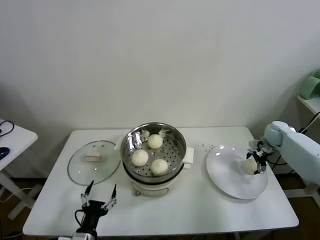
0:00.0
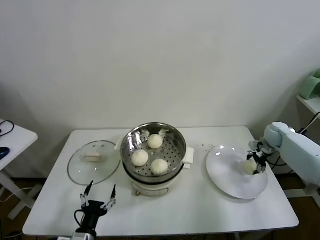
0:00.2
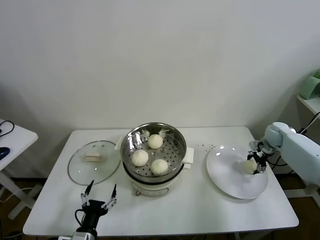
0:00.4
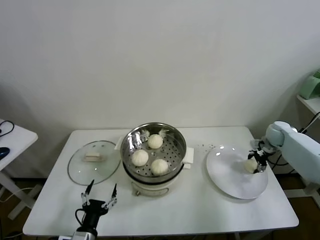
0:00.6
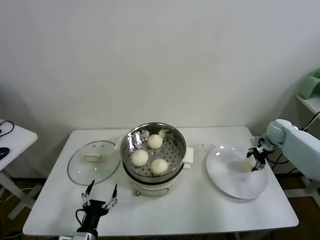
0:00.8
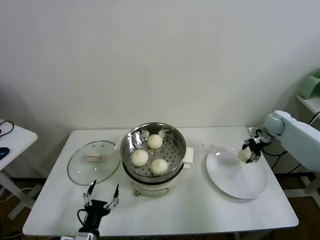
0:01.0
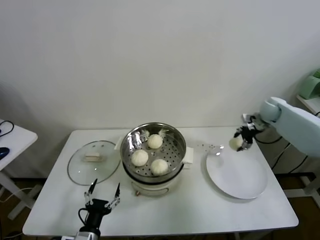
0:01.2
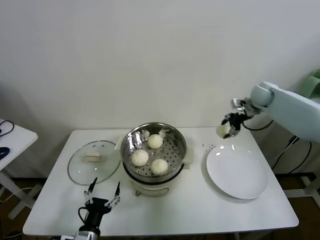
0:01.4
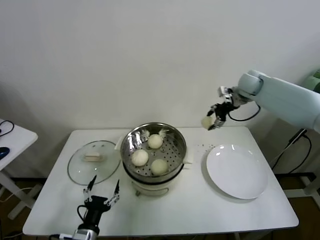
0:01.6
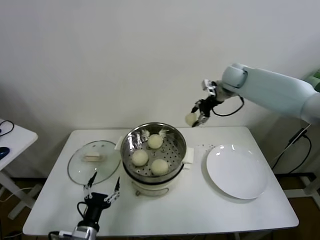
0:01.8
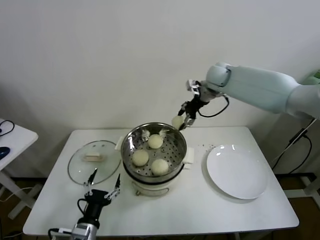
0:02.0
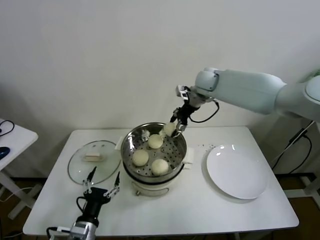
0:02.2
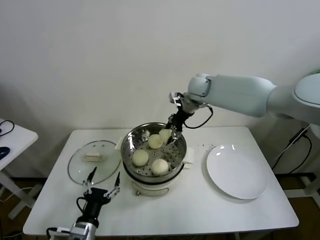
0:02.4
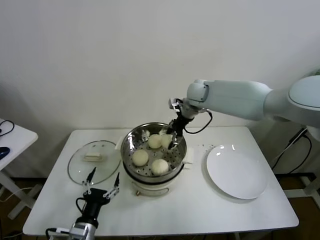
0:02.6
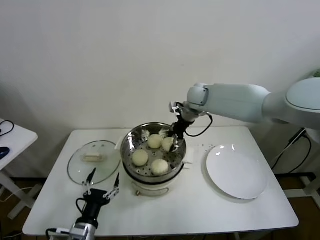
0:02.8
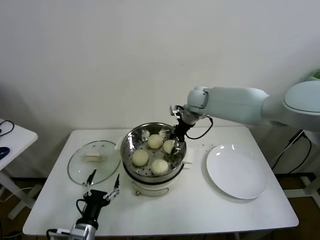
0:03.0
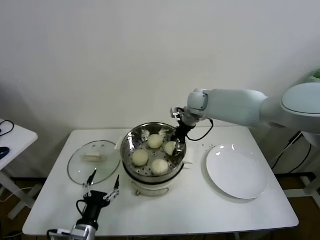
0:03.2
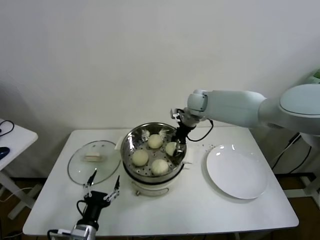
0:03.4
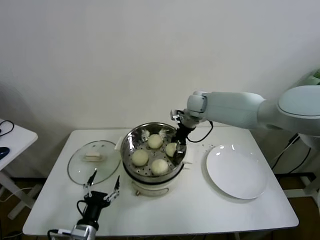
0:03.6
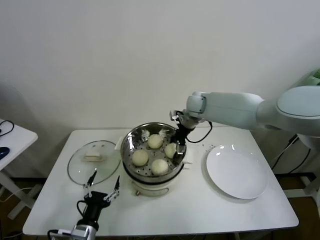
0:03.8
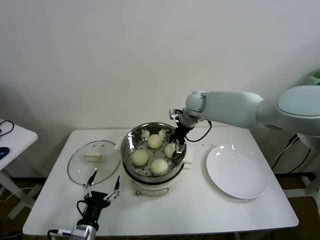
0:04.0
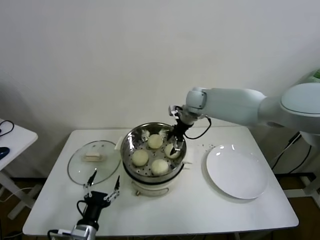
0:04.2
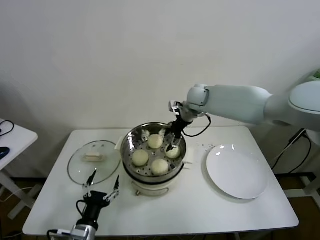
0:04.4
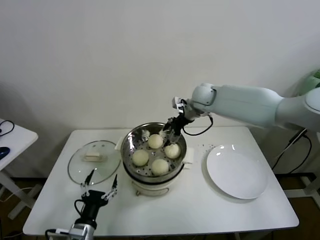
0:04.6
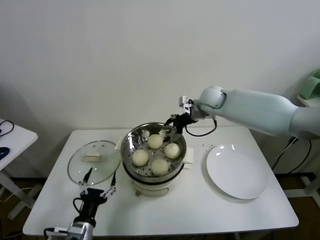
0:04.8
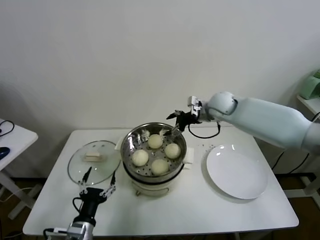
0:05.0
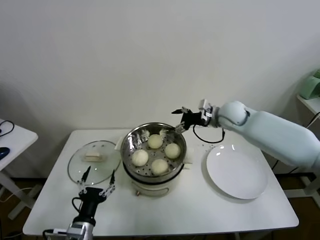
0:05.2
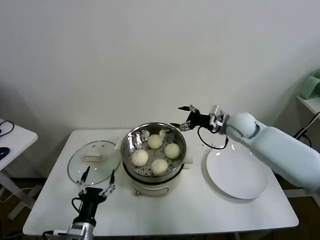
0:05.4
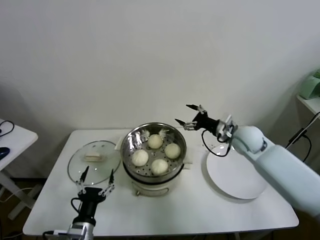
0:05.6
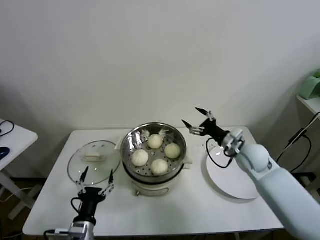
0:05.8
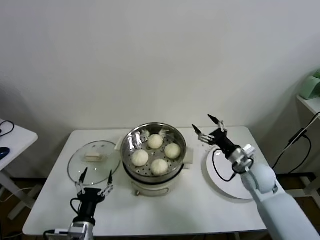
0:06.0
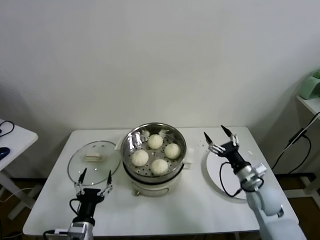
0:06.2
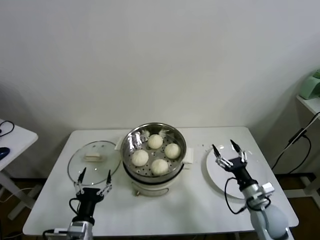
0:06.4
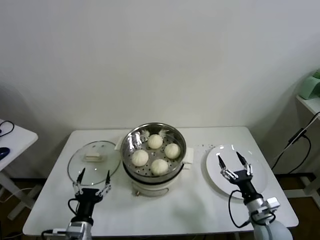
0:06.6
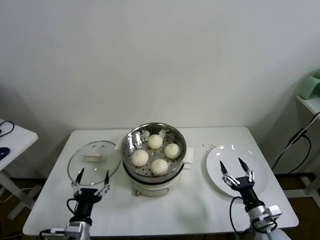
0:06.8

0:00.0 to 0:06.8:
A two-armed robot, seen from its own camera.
Task of the whole recording: take steamed baozi put them in steamer.
Step, 0:00.2 to 0:04.0: Place the baozi on the steamer with right gripper.
0:00.0 to 0:01.4: The right gripper moves upward and to the left, roughly 15 cm, and closes its fingers.
0:01.4 to 0:02.8: The right gripper moves to the left, some 25 cm.
0:02.8 to 0:04.0: The right gripper opens its fingers.
0:04.0 to 0:05.4: The right gripper heads to the right and backward, covering approximately 15 cm.
0:05.4 to 0:06.8: The right gripper shifts about 35 cm backward and downward.

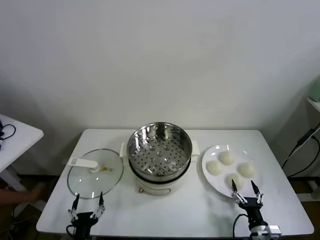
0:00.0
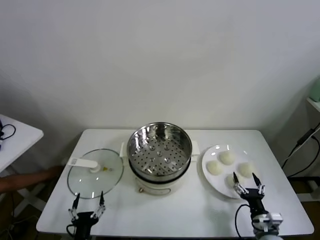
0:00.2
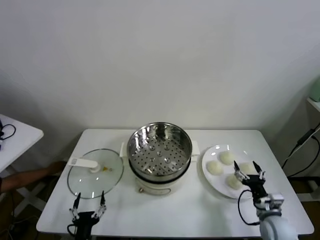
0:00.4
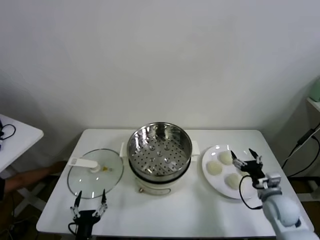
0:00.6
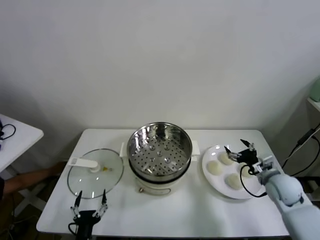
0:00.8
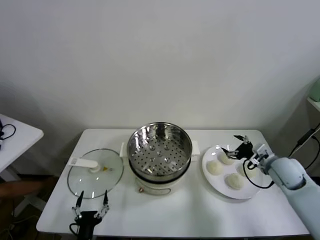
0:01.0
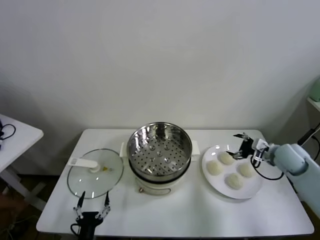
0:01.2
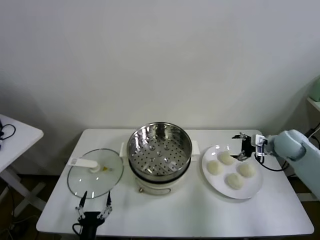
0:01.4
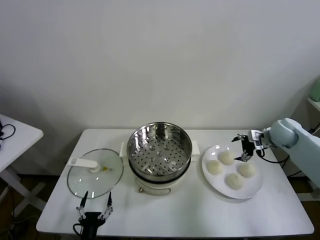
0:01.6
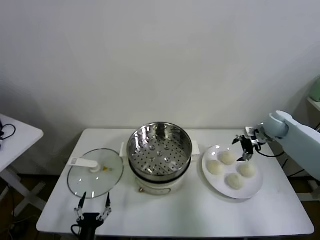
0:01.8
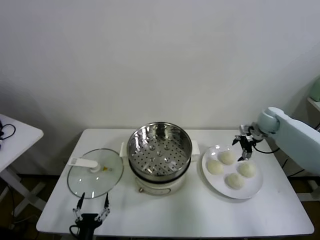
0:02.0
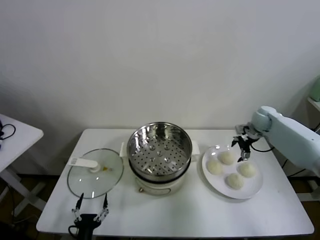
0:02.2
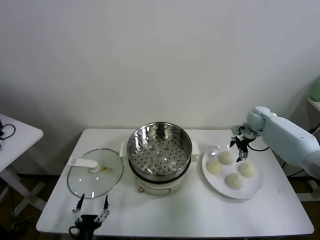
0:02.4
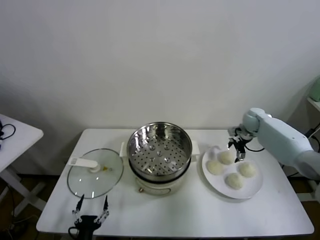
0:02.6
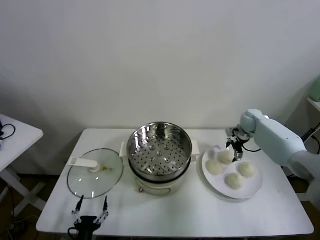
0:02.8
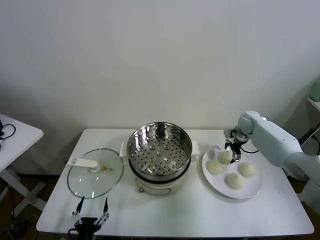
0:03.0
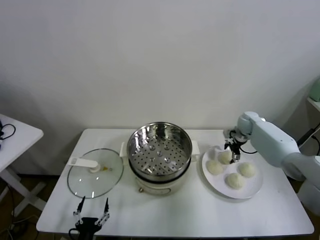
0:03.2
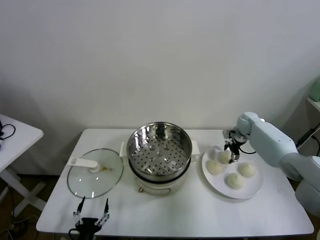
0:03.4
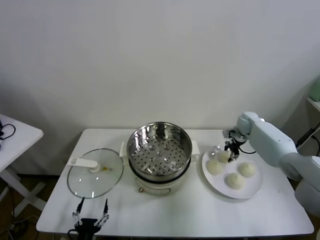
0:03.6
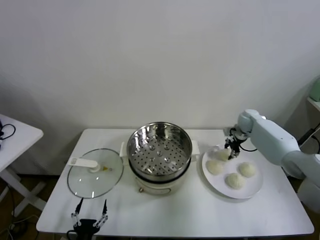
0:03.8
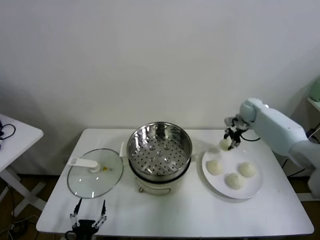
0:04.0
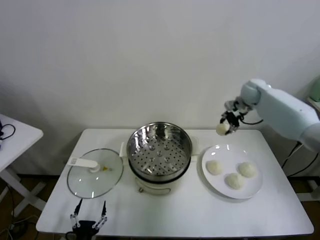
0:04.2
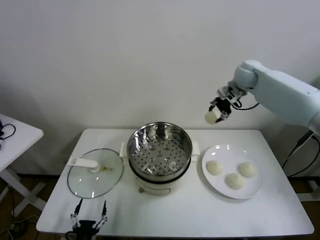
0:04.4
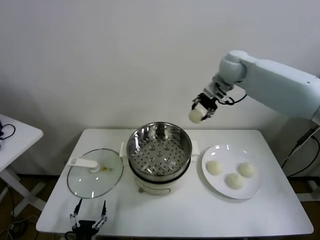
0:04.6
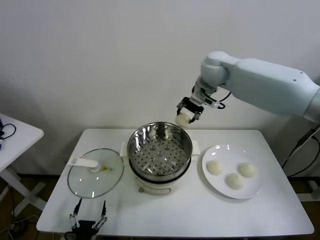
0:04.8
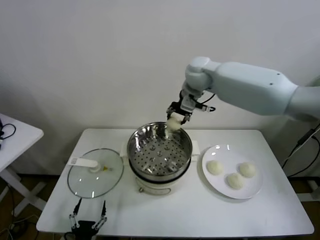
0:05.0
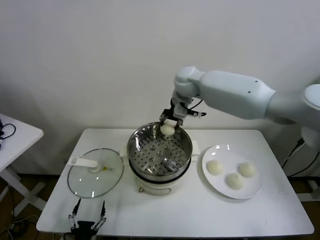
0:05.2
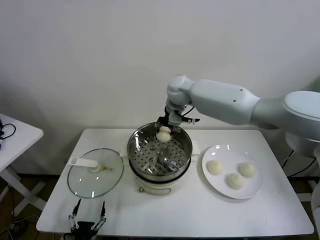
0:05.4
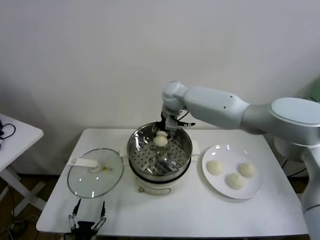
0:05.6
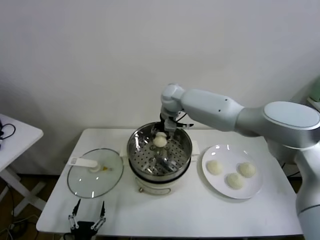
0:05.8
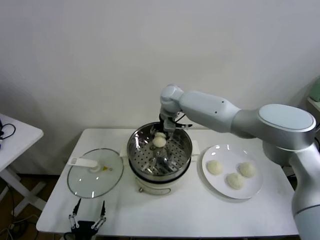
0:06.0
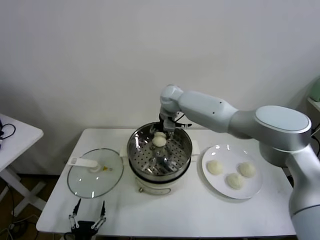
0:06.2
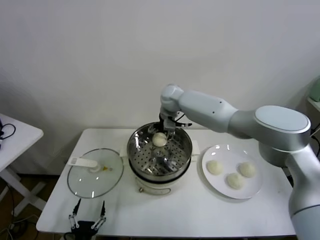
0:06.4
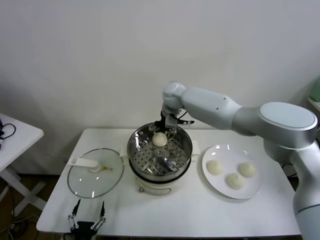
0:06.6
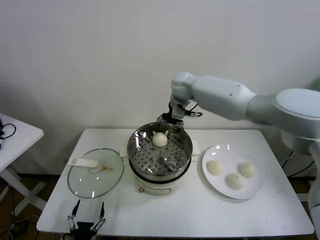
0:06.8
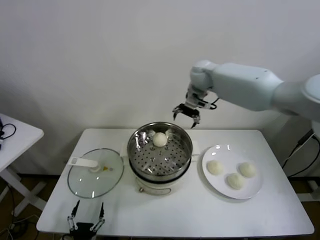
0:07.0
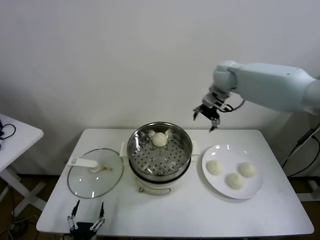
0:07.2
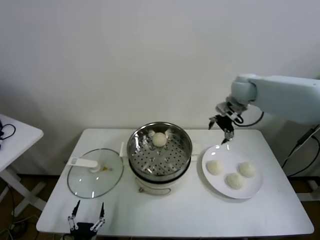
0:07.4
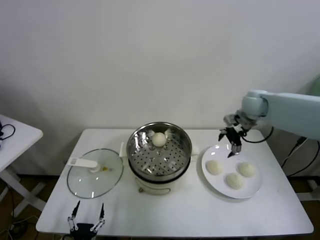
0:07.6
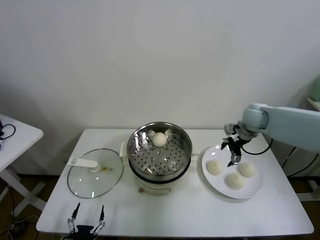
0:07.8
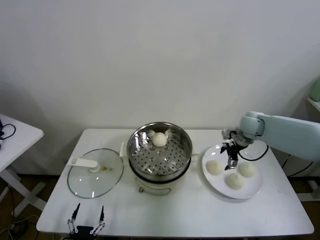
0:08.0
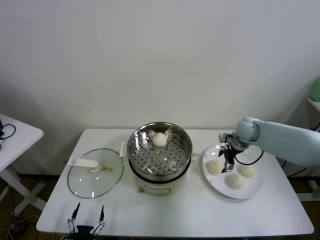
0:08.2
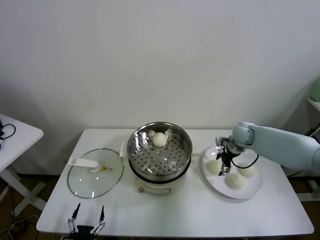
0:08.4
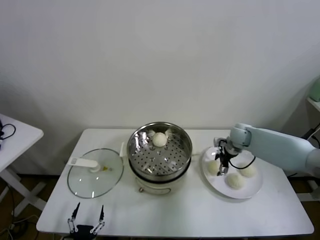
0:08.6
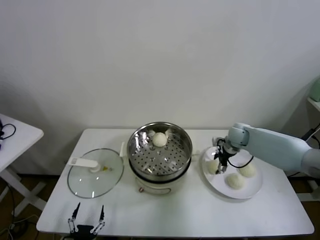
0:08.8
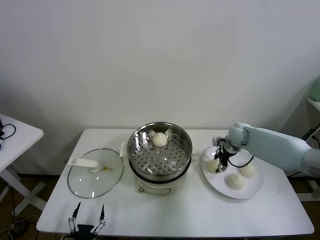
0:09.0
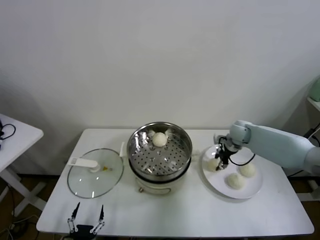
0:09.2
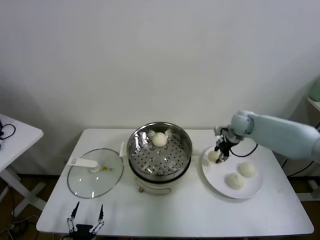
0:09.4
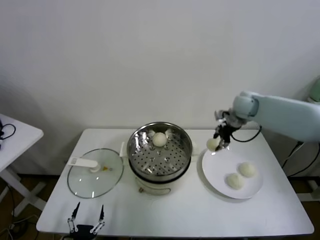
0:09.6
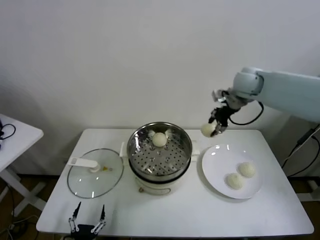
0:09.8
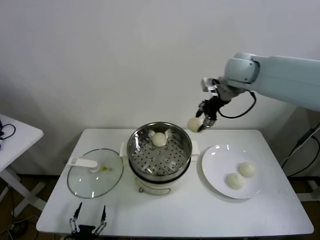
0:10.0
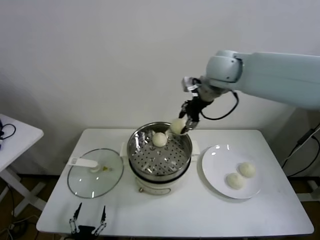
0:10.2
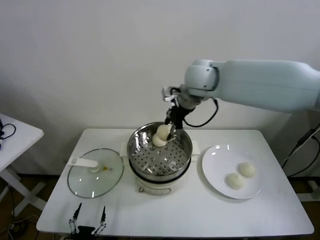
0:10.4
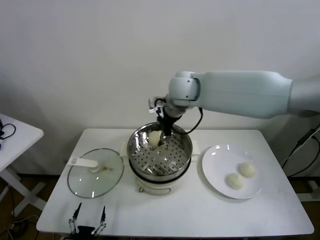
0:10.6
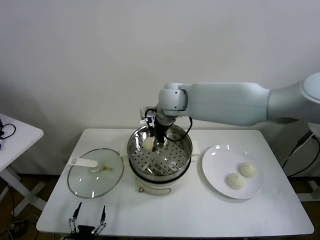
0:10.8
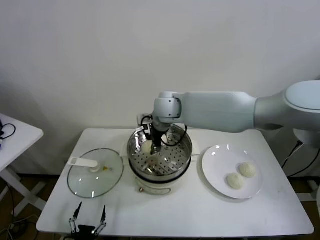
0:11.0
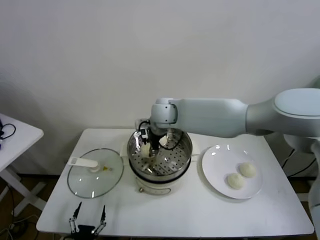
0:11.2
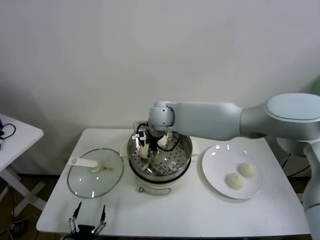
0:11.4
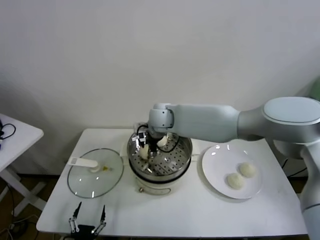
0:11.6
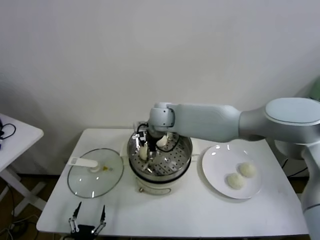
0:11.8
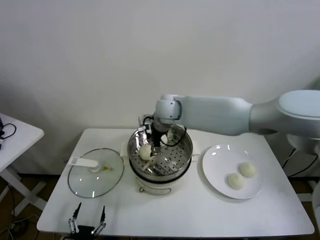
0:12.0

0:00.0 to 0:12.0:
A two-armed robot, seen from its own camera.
Task of the whole recording: take steamed baozi put them in steamer.
Step, 0:00.0 to 0:03.4: Grasp the baozi in the plate with right gripper.
Step, 0:03.6 to 0:06.4: Place the baozi on the steamer with right gripper.
Step, 0:06.6 to 0:08.8: Grasp the baozi in the plate with right gripper.
Step, 0:09.0 to 0:11.6: Place the baozi on the steamer with right gripper.
0:01.6 to 0:03.0: The right gripper shifts about 15 cm forward, downward and to the left.
0:03.0 to 0:04.4: The right gripper is displaced upward and to the left by some 25 cm, and closes up.
0:04.4 to 0:06.0: The right gripper is displaced to the left and downward by some 25 cm.
0:06.0 to 0:07.6: The right gripper goes roughly 30 cm to the right, and opens.
0:07.6 to 0:09.0: The right gripper moves downward, roughly 15 cm, and closes up.
0:09.0 to 0:10.4: The right gripper heads upward and to the left, covering about 35 cm.
0:10.4 to 0:12.0: The right gripper heads downward and to the left, covering approximately 10 cm, and opens its fingers.

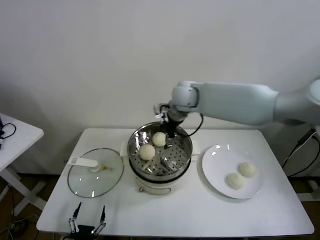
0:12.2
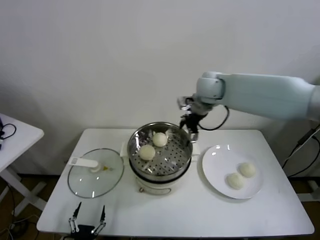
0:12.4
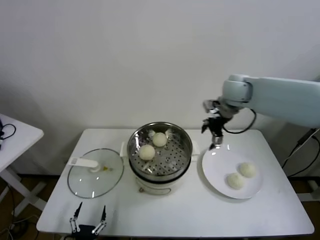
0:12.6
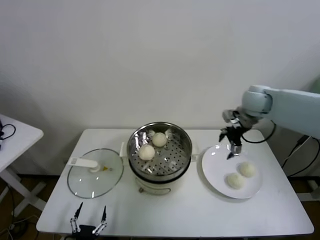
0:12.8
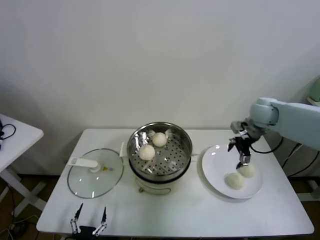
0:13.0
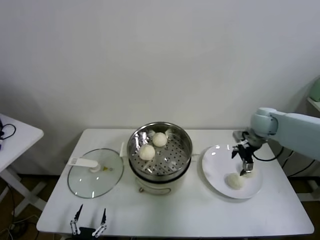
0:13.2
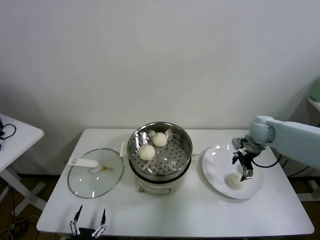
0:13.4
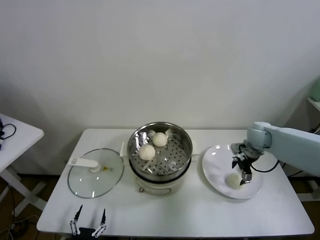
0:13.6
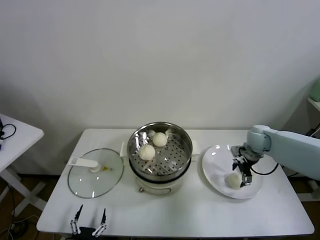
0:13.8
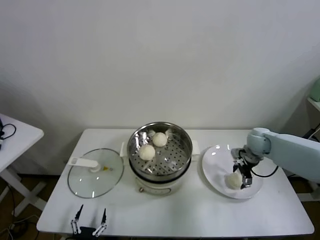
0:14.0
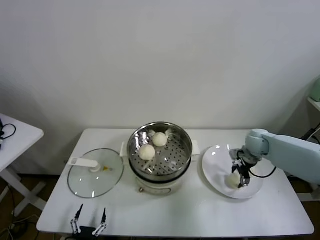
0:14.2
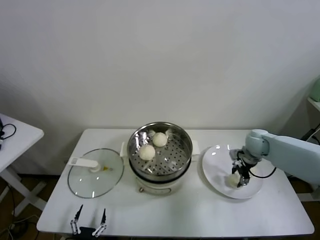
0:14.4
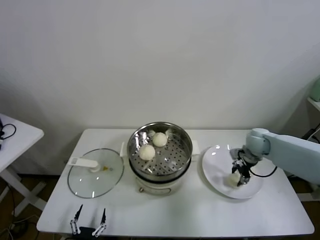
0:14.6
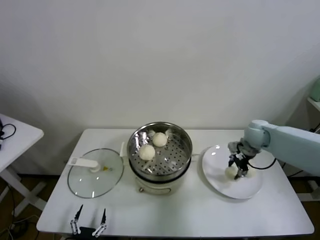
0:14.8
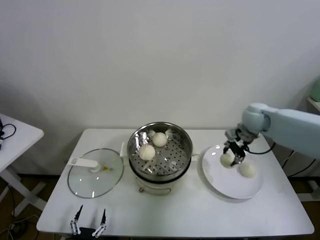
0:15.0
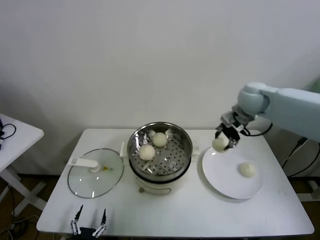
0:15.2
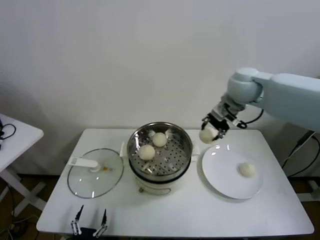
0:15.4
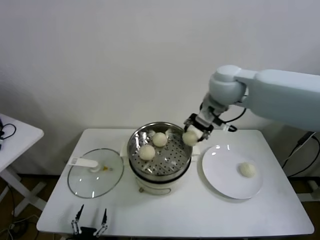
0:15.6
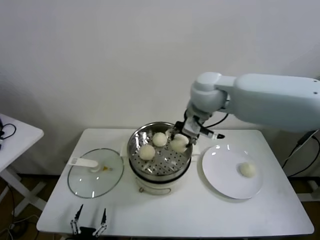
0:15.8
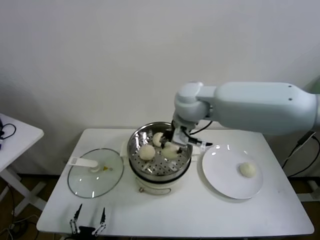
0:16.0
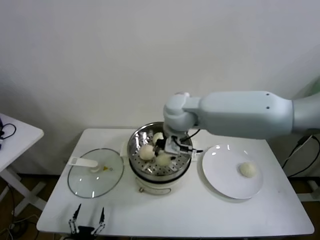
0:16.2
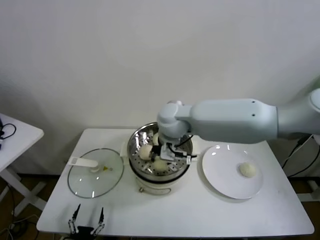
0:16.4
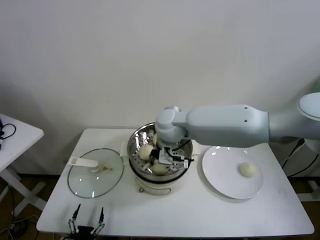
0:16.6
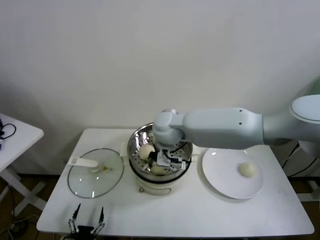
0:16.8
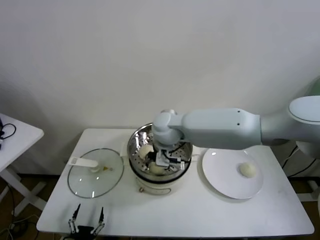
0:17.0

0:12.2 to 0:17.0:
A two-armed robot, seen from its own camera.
Task of the whole recording: take steamed baozi put them in steamer.
Step, 0:12.2 to 0:14.2: Grasp the baozi in the plate with right gripper.
0:12.2 to 0:13.8: The right gripper goes roughly 35 cm to the right and downward.
0:13.8 to 0:15.4: The right gripper goes about 25 cm upward and to the left, and closes.
0:15.4 to 0:17.0: The right gripper travels to the left and downward by some 25 cm, and opens up.
